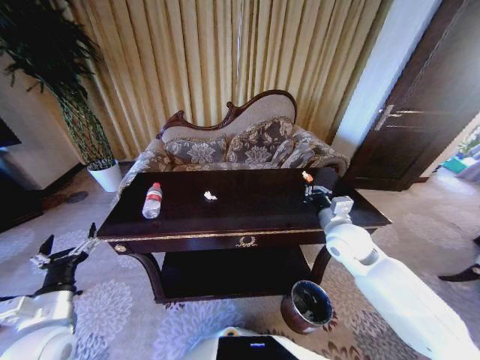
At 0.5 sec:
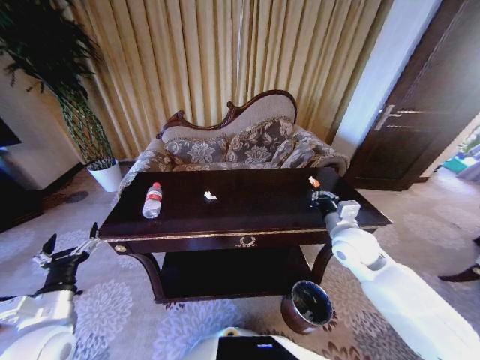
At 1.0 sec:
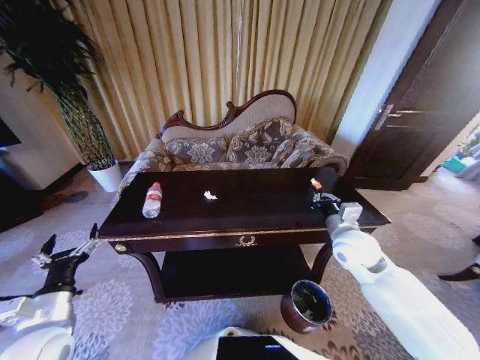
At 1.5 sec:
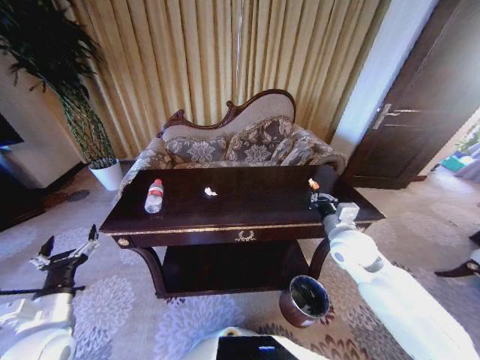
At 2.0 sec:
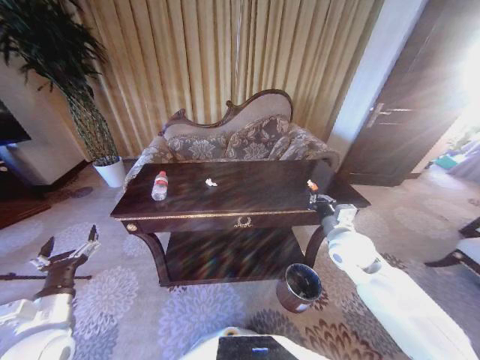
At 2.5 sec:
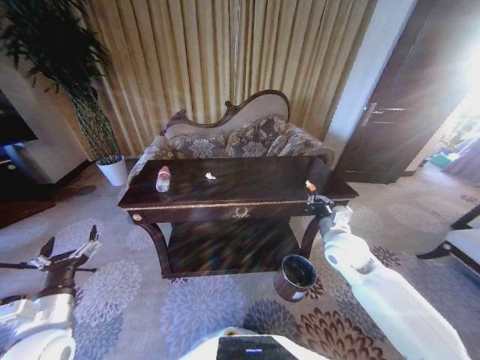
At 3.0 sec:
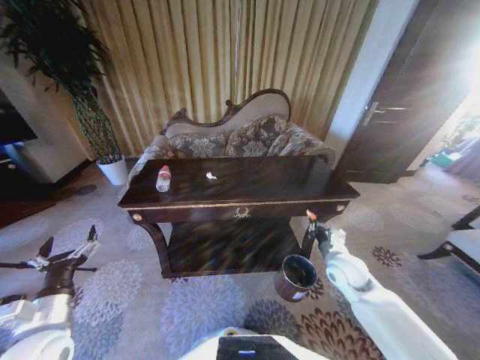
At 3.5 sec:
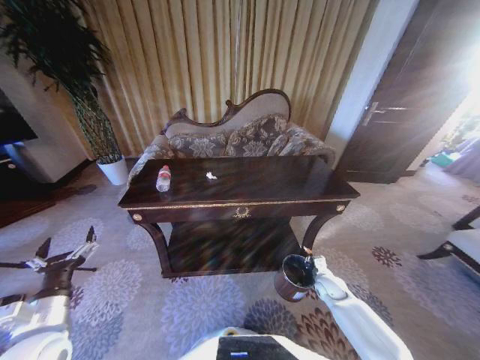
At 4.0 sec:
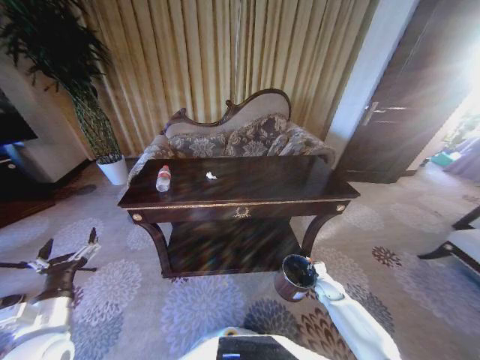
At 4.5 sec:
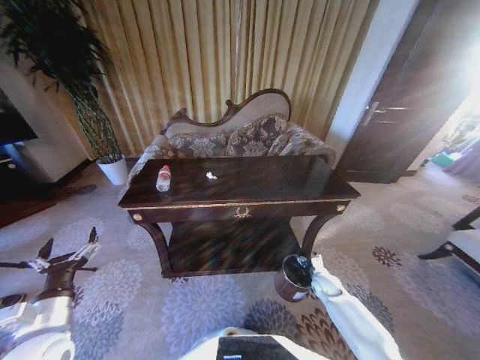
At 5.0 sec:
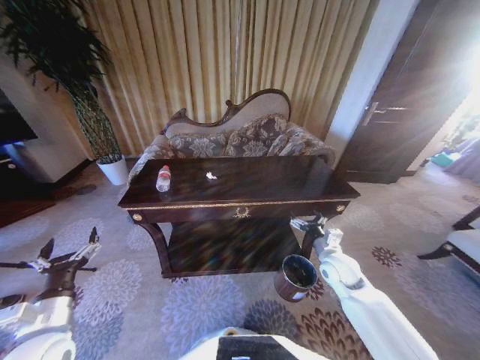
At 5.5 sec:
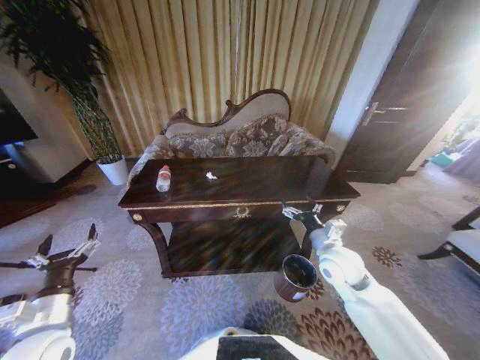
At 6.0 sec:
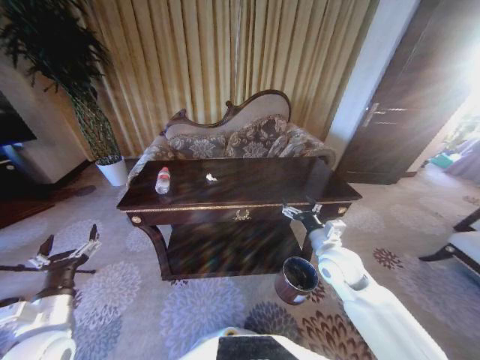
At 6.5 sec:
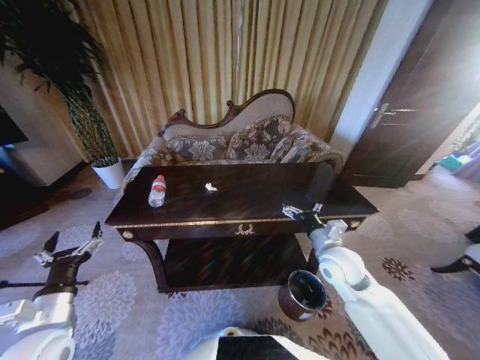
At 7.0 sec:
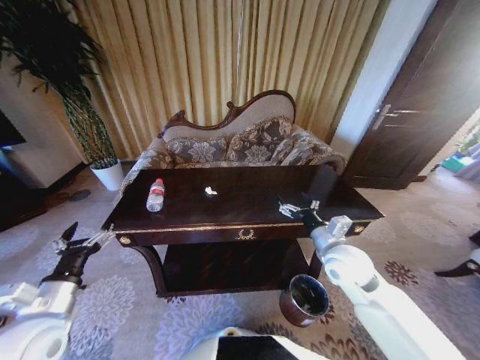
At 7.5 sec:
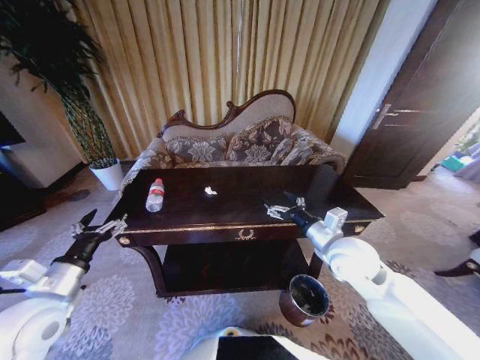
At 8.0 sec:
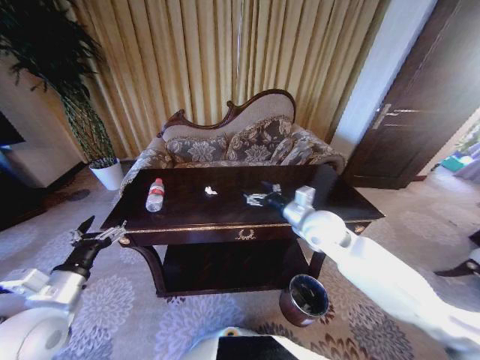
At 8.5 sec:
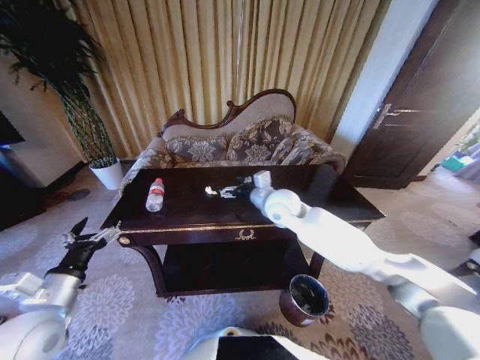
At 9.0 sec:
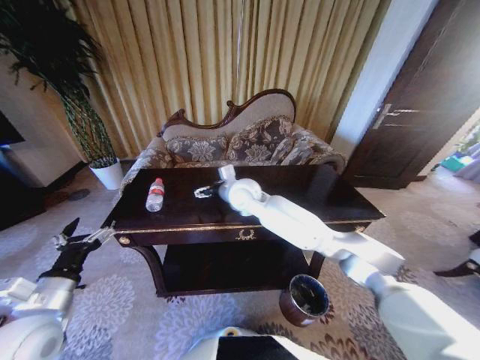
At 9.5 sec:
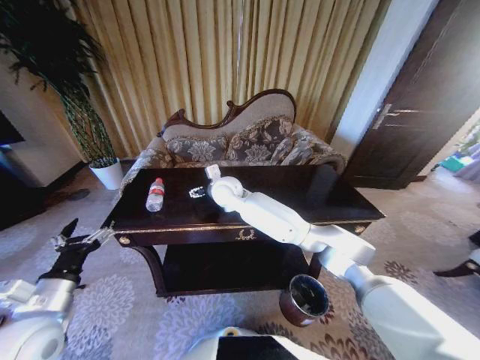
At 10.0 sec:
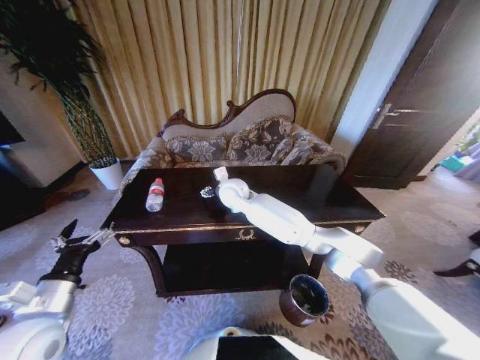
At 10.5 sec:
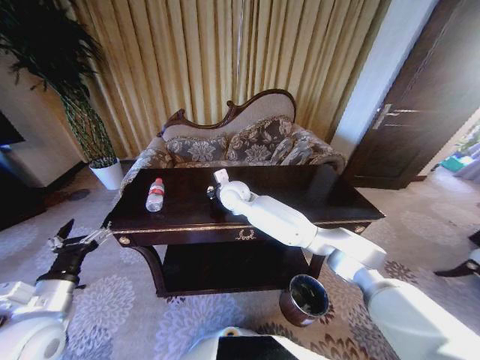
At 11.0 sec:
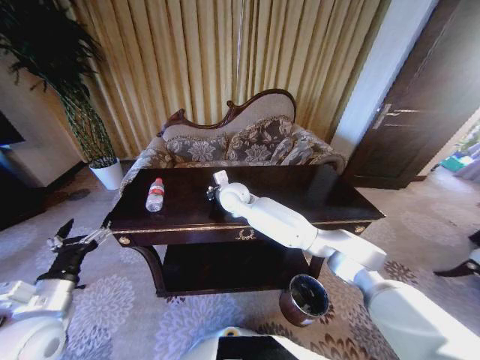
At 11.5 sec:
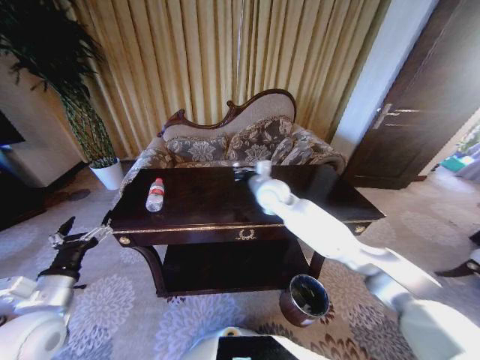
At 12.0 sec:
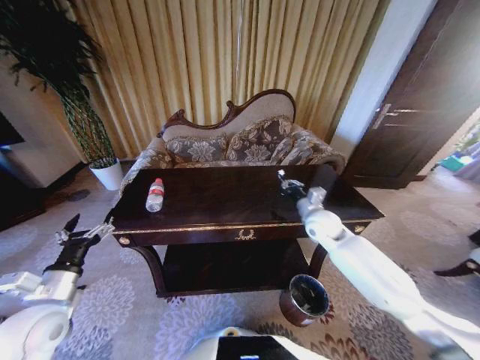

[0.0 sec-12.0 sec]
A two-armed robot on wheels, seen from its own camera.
Task of the whole recording: Move to the front of the table and place the trash on the table into the trash bin.
2.0 sec to 4.0 sec: The right gripper moves downward, approximately 30 cm.
4.0 sec to 6.0 sec: The right gripper shifts approximately 30 cm upward and to the left, and opens up.
6.0 sec to 8.0 sec: The left gripper changes place by some 5 cm; the right gripper shifts approximately 10 cm upward and forward.
8.0 sec to 10.0 sec: The right gripper travels to the left and forward by approximately 25 cm.
10.0 sec to 12.0 sec: The right gripper travels to the right by some 30 cm, and closes its fingers.

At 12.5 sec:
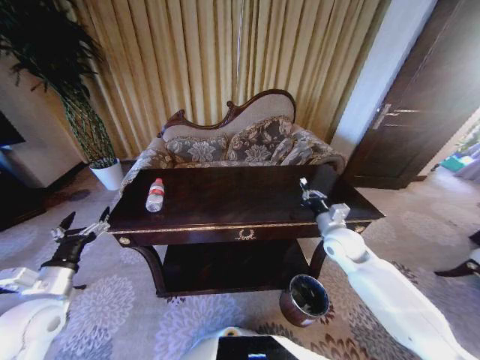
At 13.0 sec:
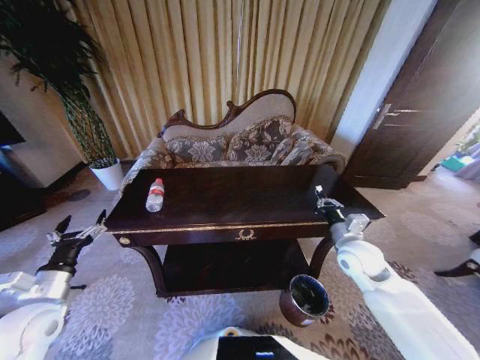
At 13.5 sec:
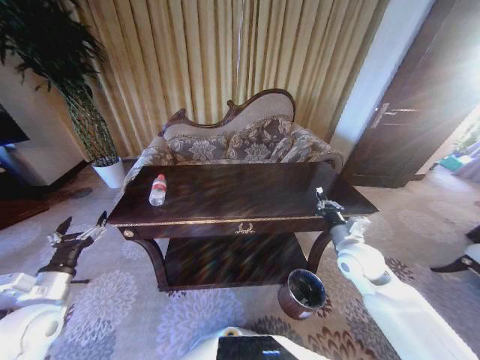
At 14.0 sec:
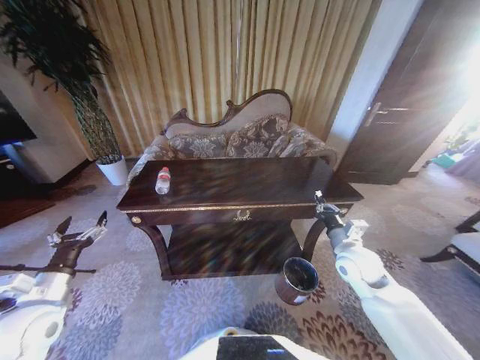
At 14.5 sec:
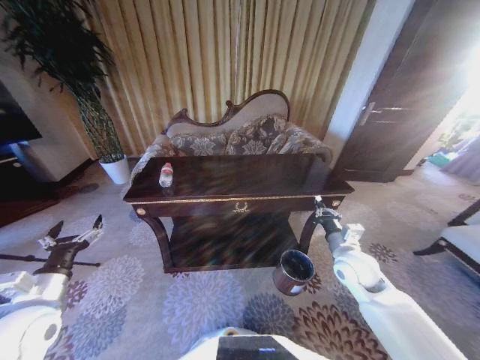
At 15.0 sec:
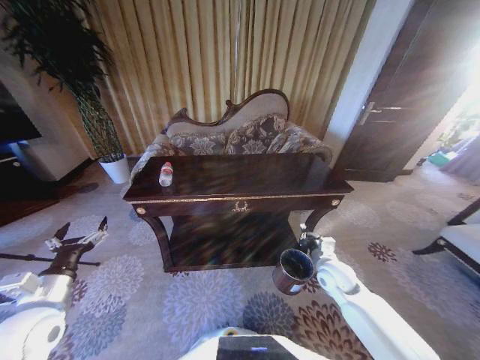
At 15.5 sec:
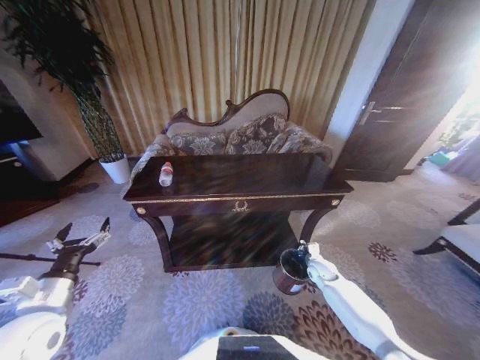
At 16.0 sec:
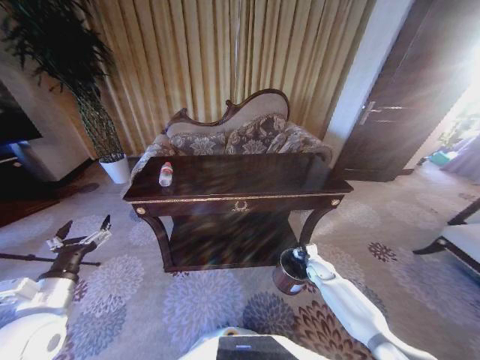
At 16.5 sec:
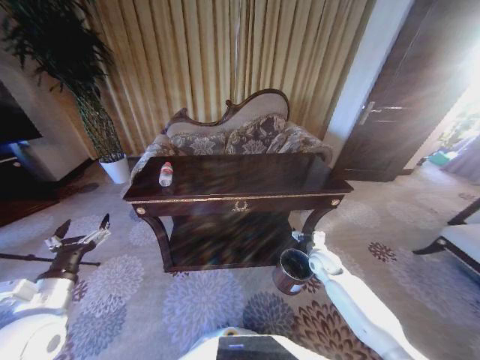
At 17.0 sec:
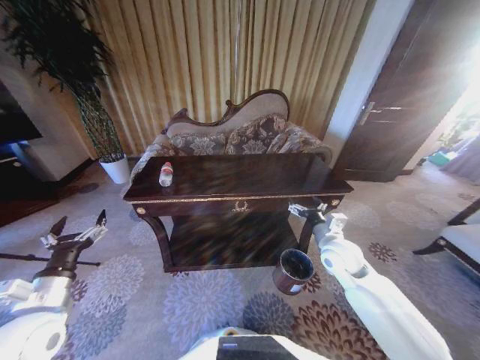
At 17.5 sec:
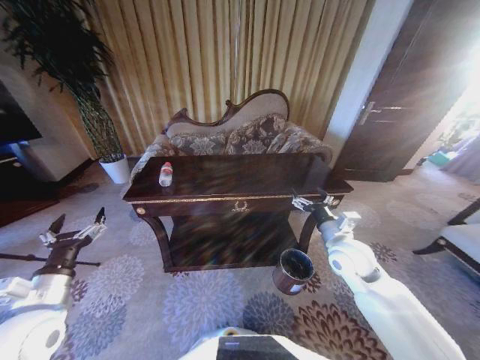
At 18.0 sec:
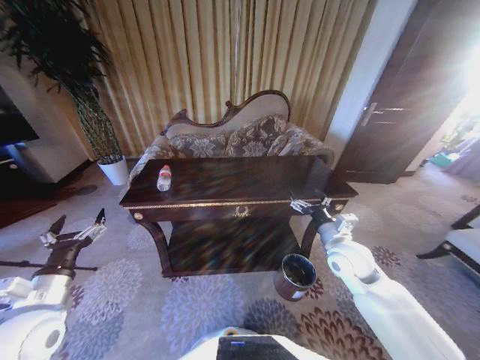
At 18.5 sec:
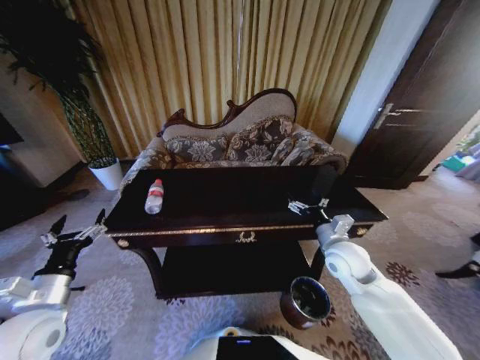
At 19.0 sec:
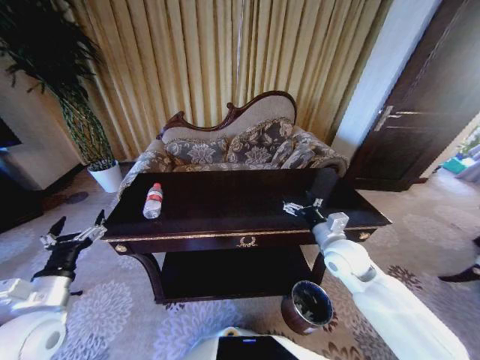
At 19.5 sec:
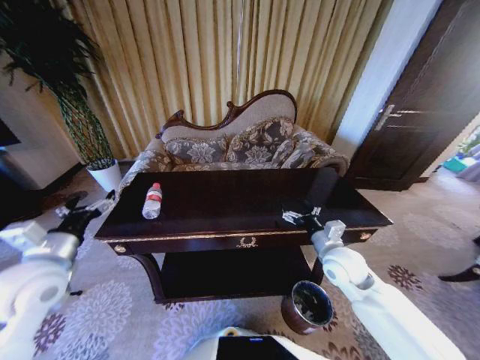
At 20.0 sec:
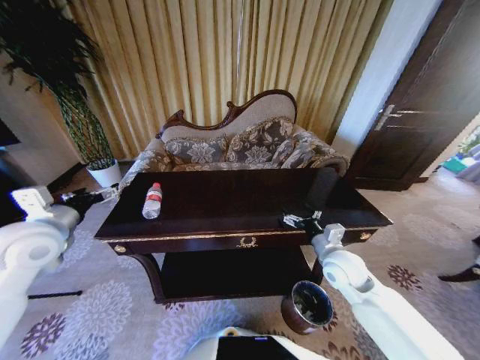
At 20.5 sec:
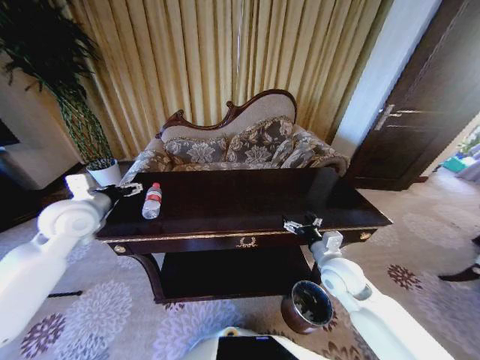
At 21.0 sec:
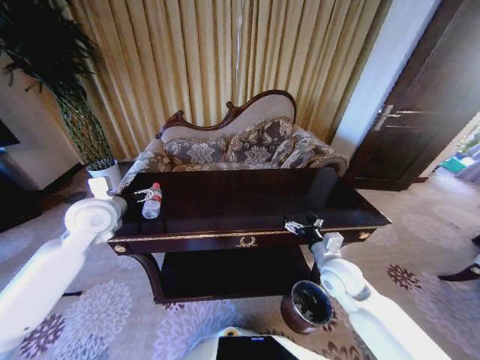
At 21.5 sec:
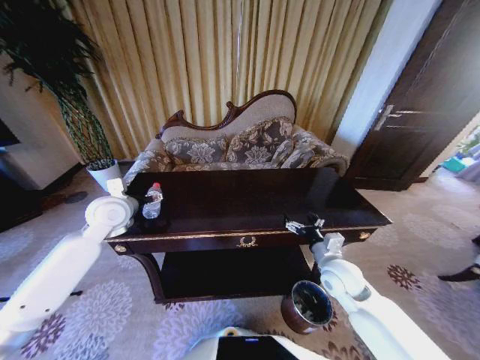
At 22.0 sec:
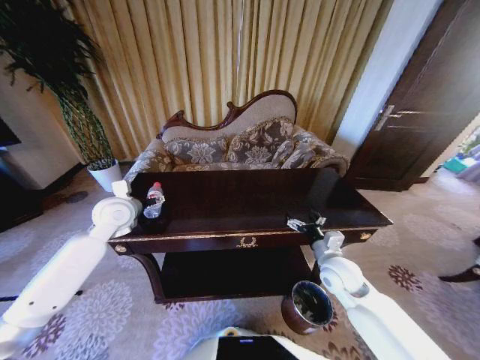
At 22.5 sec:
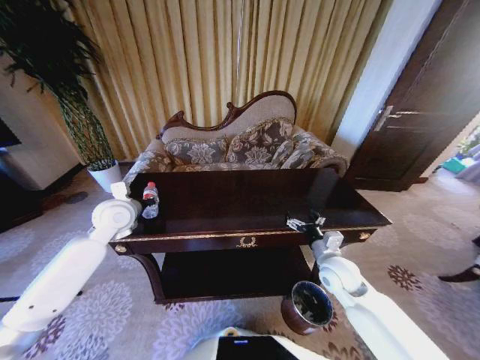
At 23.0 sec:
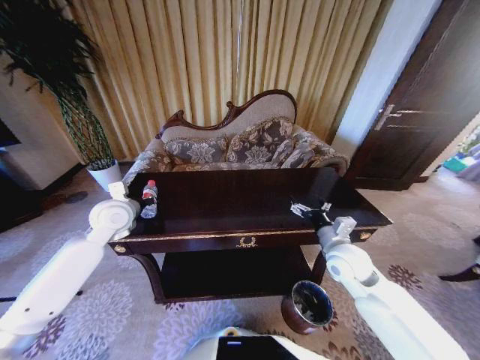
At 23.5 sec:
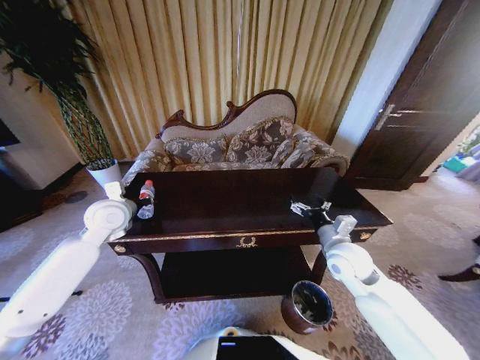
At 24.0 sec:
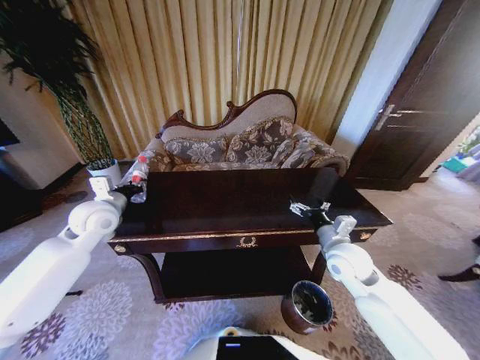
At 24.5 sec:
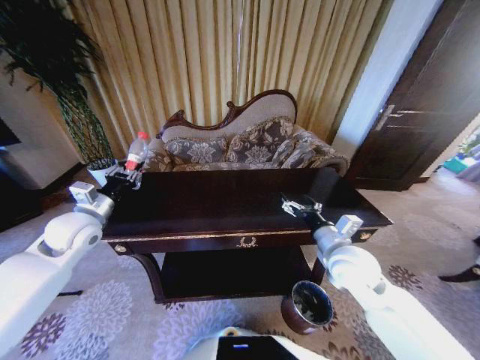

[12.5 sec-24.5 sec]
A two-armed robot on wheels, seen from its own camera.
Task of the whole recording: Move to the front of the table and place the trash on the table into the trash bin.
12.5 sec to 14.5 sec: The right gripper moves backward, some 5 cm.
14.5 sec to 16.5 sec: The right gripper shifts some 15 cm downward and forward, and opens its fingers.
16.5 sec to 18.5 sec: The right gripper heads upward, covering about 20 cm.
18.5 sec to 20.5 sec: The left gripper moves forward and upward, about 20 cm.
20.5 sec to 22.5 sec: The left gripper travels to the right and forward by about 10 cm, and closes up.
22.5 sec to 24.5 sec: The right gripper is displaced upward by roughly 10 cm, while the left gripper moves to the left and backward, some 10 cm.

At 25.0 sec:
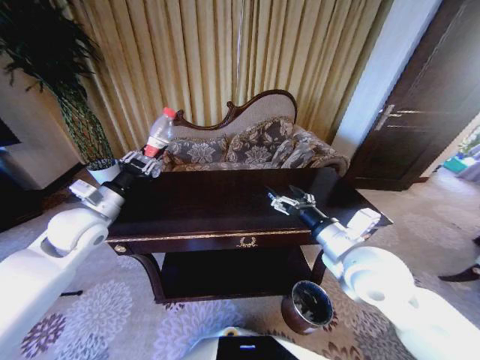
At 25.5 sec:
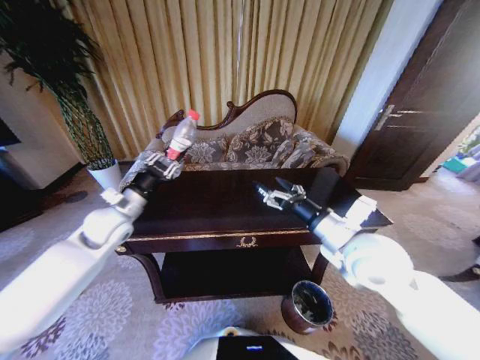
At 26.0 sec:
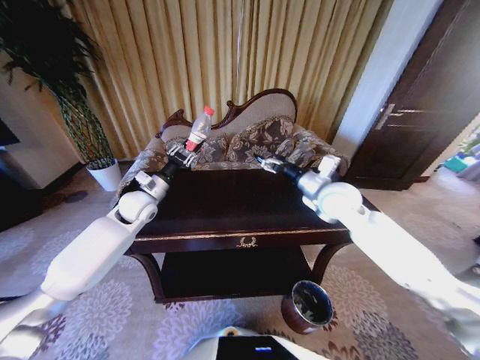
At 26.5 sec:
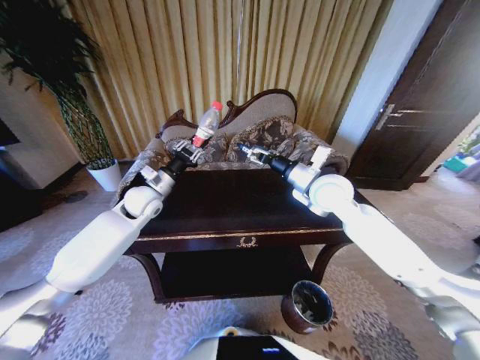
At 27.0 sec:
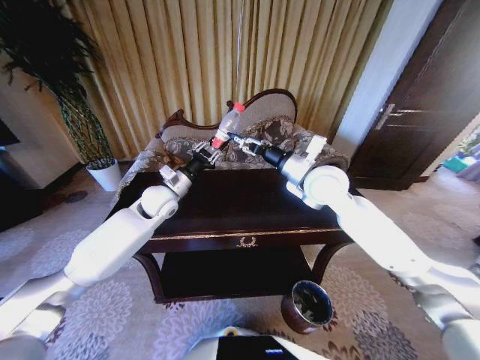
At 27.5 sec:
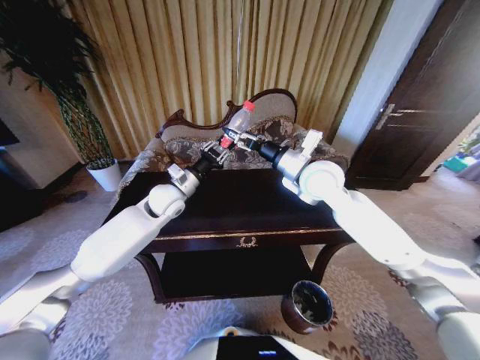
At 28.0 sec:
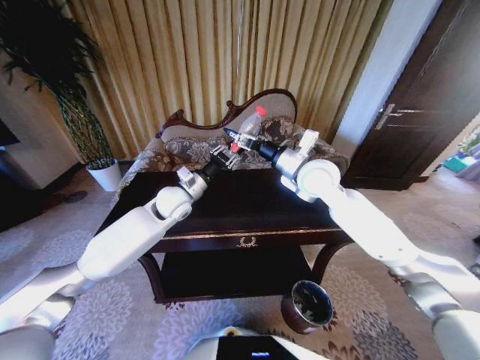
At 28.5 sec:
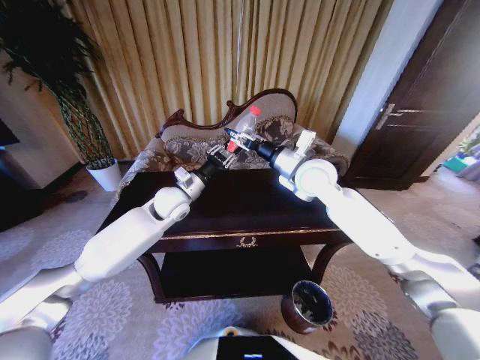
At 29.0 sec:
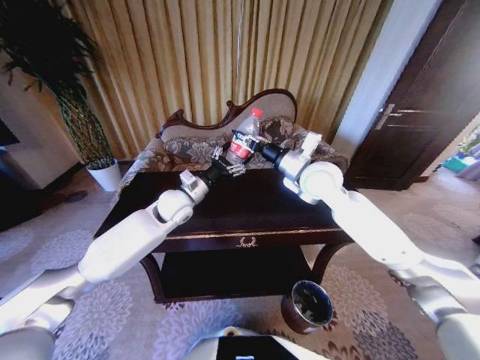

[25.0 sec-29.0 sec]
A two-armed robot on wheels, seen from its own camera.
Task of the whole recording: Move to the front of the table and place the trash on the table into the trash bin.
25.0 sec to 27.0 sec: The right gripper is displaced forward by some 20 cm, while the left gripper is displaced to the right and forward by approximately 20 cm.
27.0 sec to 29.0 sec: The left gripper opens its fingers. Meanwhile the right gripper closes its fingers.
